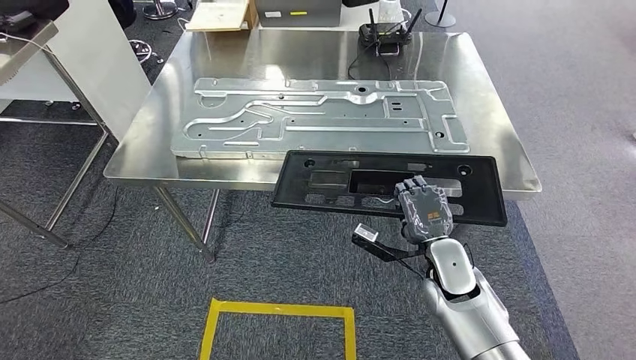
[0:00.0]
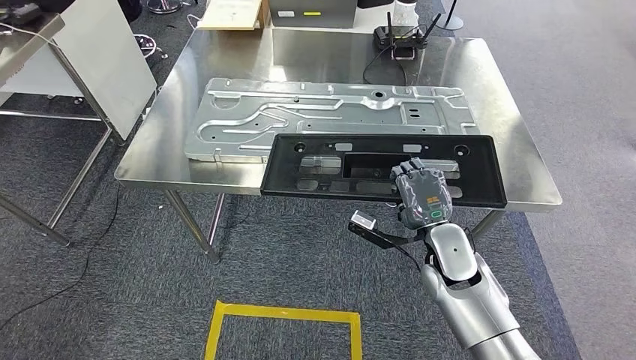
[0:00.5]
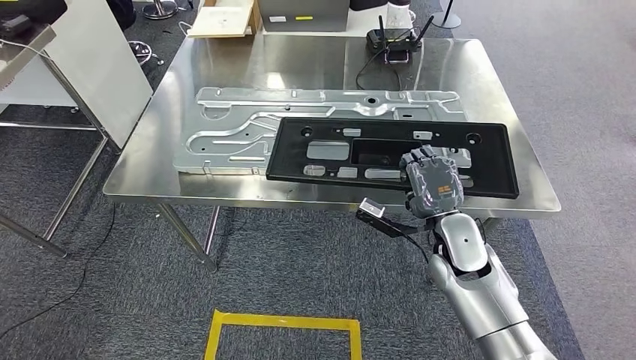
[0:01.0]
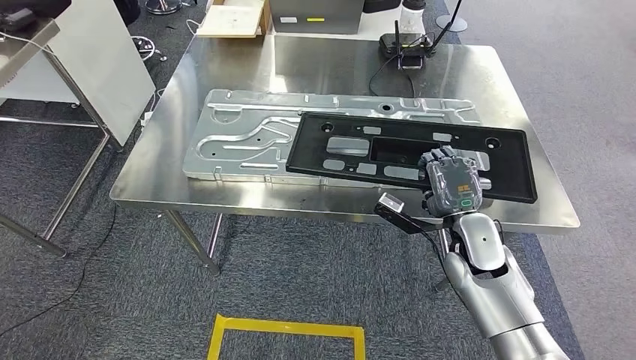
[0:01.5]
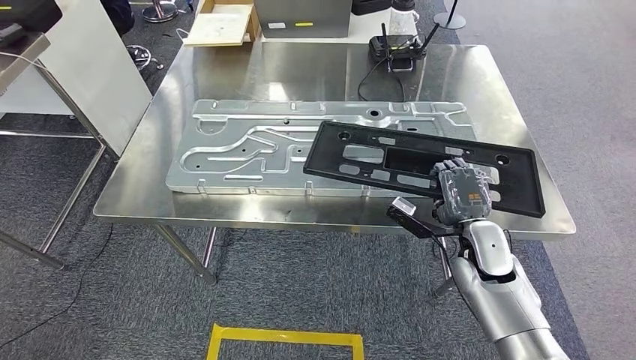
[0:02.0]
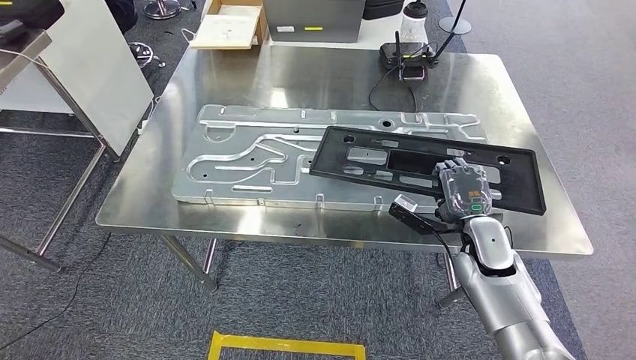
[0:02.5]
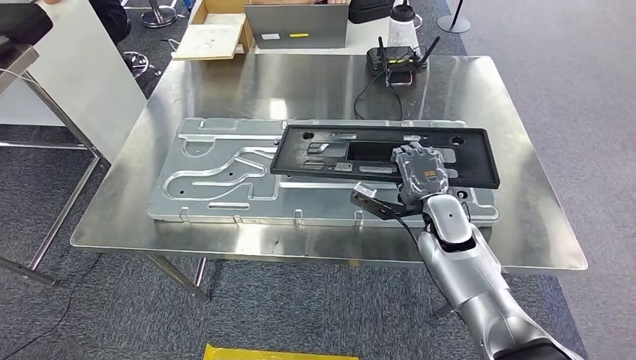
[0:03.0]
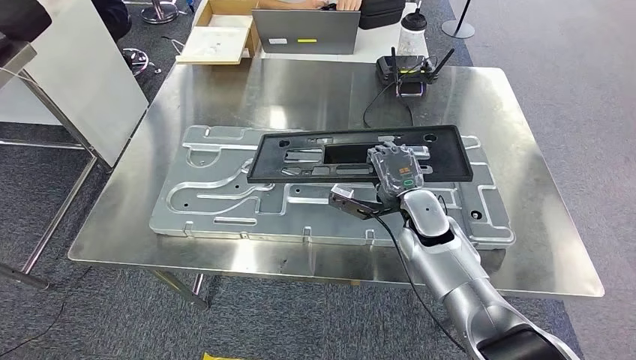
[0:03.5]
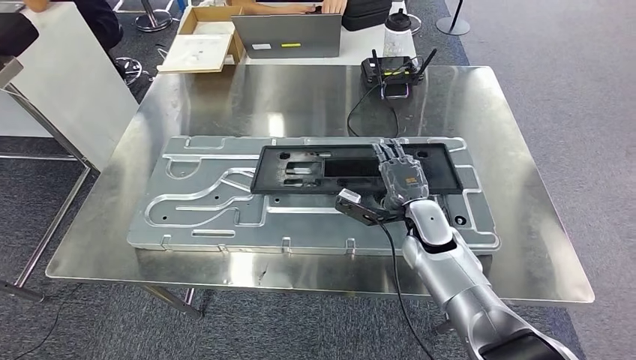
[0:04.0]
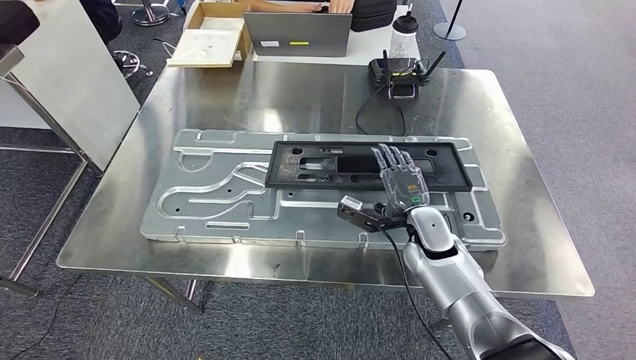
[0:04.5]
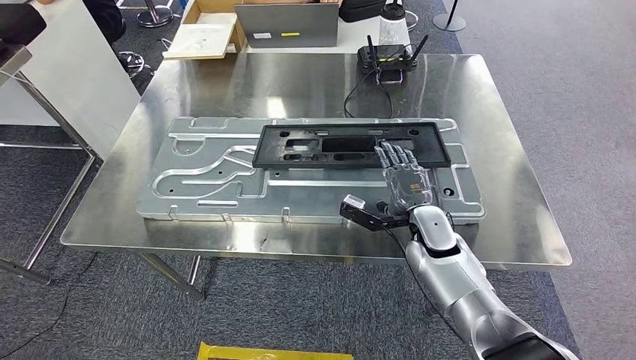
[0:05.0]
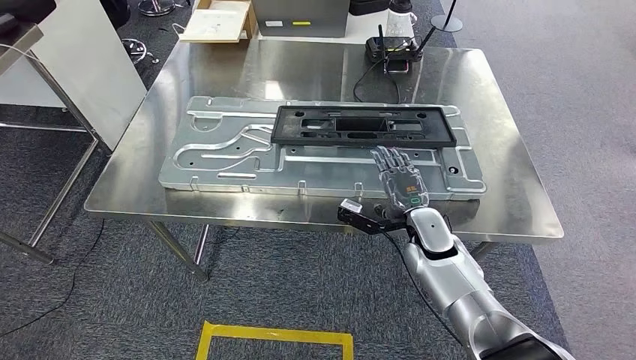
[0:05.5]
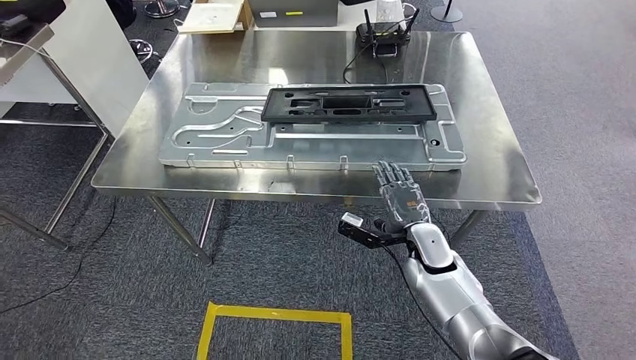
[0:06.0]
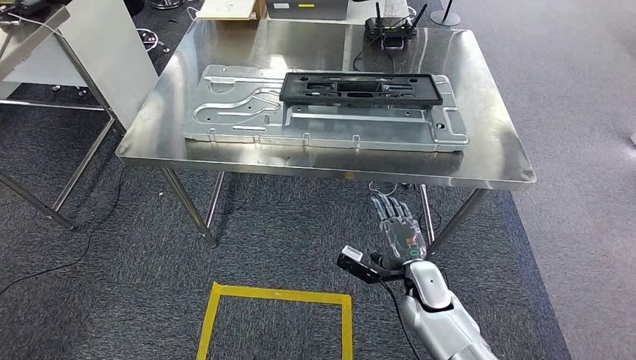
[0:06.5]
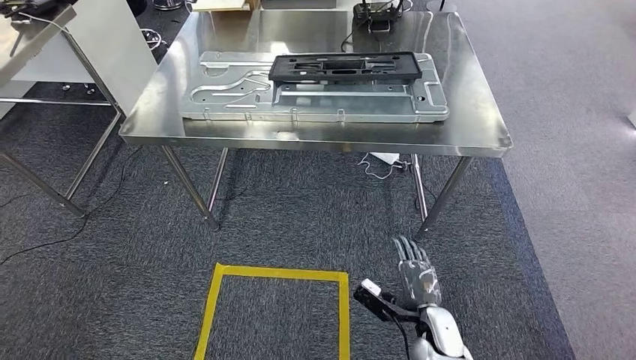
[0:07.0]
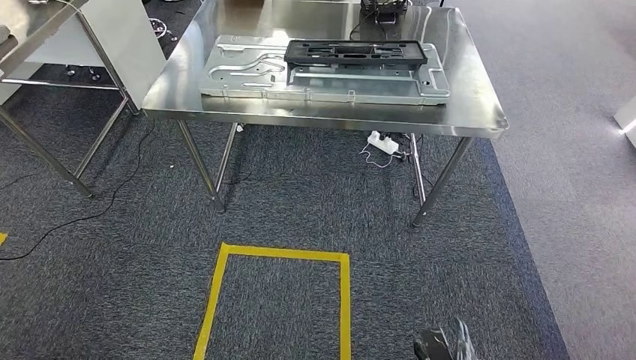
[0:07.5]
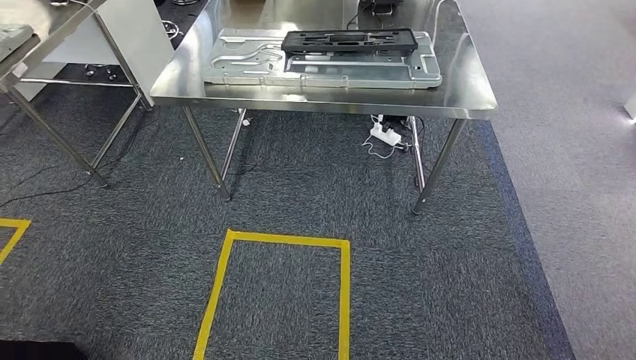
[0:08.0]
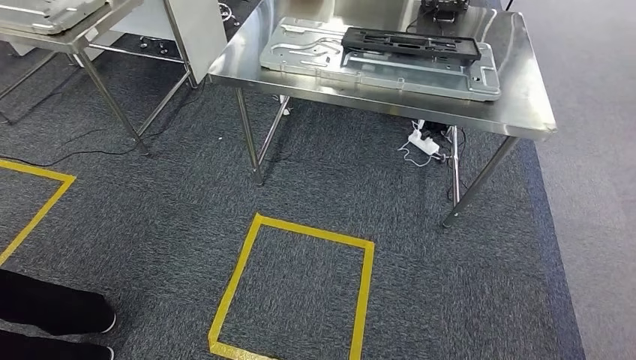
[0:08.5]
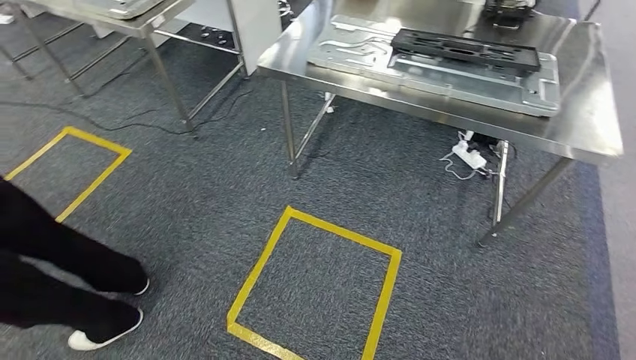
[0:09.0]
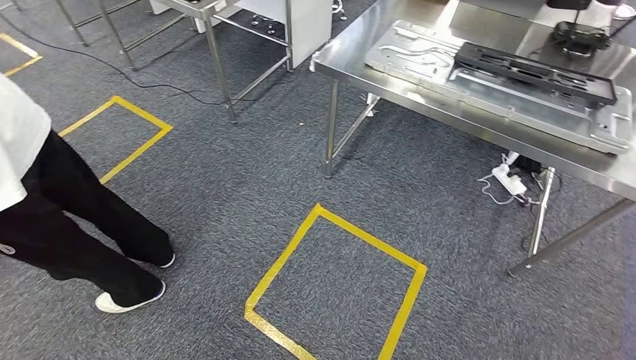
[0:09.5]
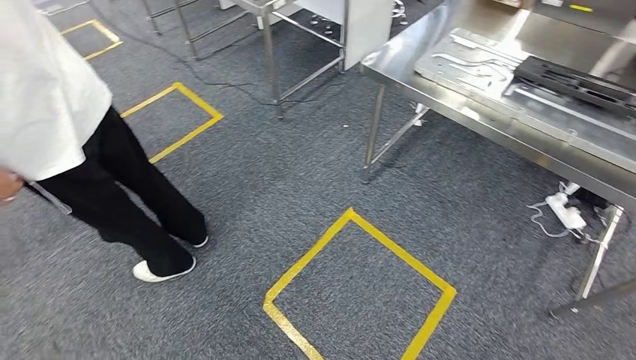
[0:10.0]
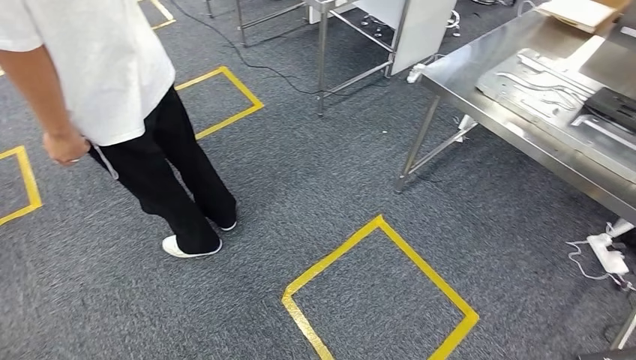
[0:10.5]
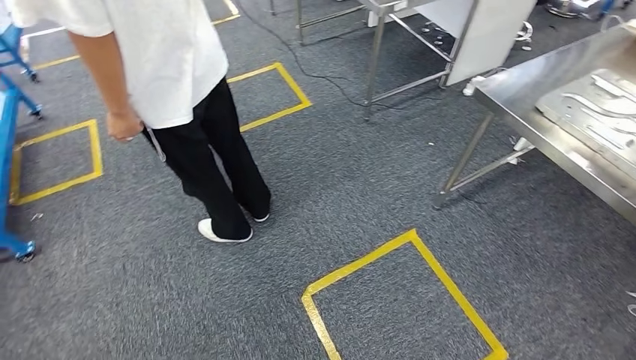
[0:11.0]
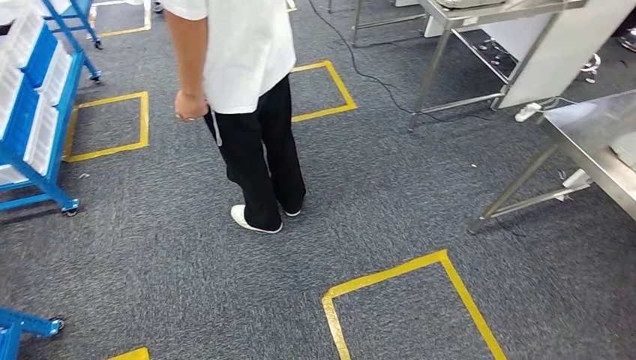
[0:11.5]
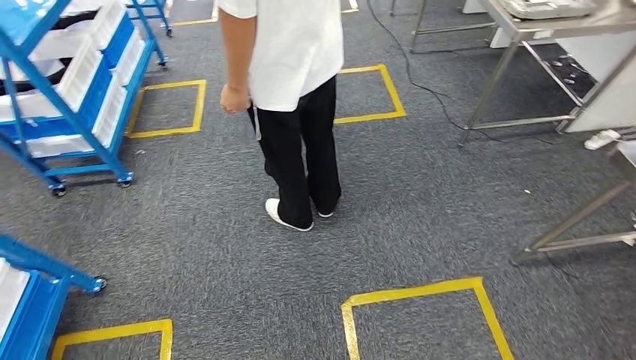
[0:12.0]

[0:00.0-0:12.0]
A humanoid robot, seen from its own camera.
Step, 0:00.0 to 0:08.0: Insert the large material into the corresponding slot on the workbench.

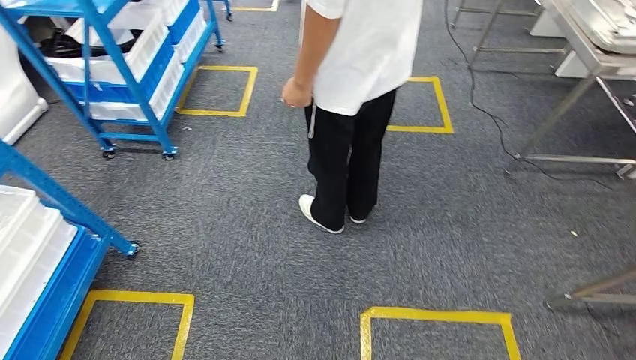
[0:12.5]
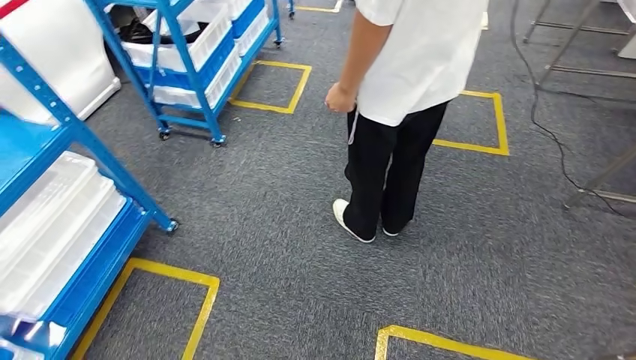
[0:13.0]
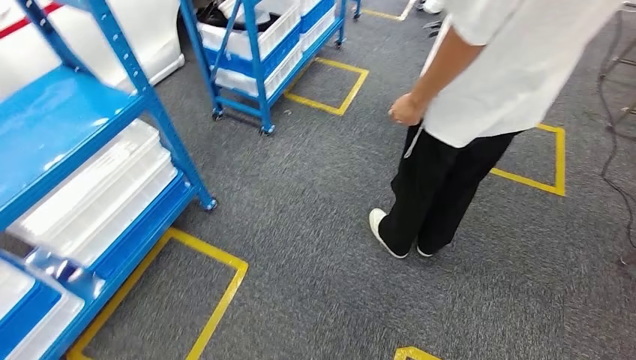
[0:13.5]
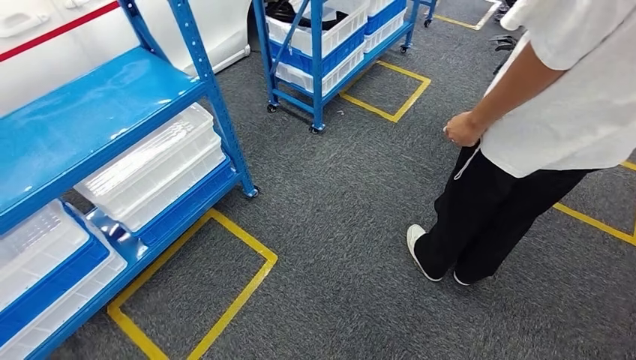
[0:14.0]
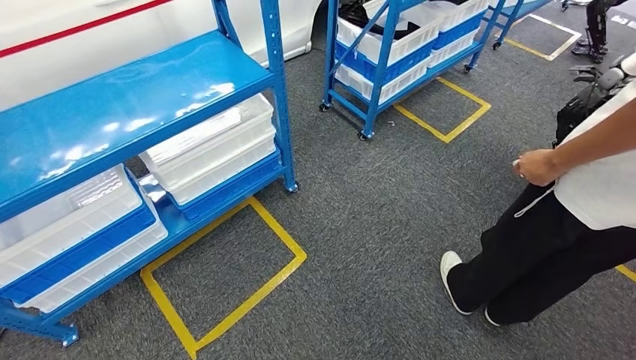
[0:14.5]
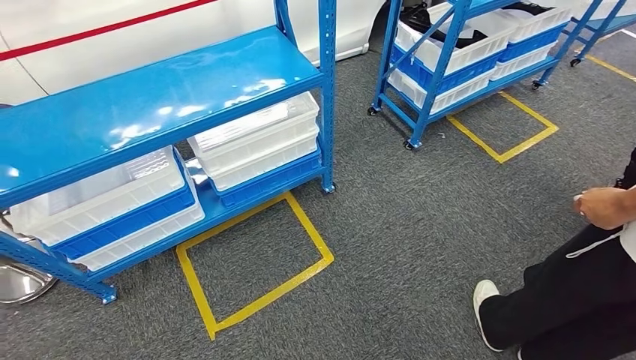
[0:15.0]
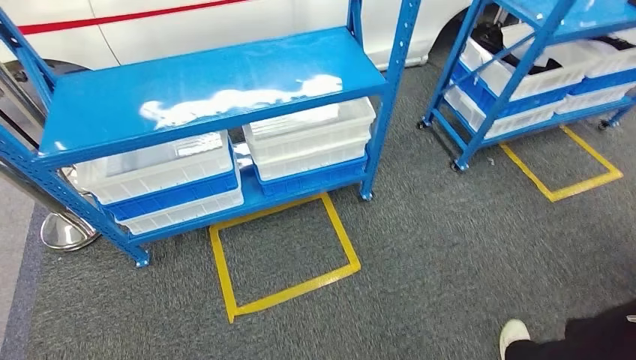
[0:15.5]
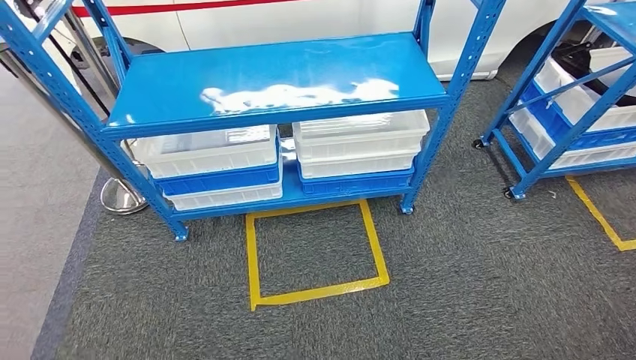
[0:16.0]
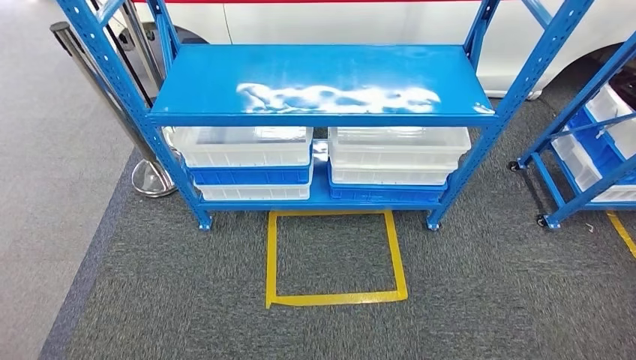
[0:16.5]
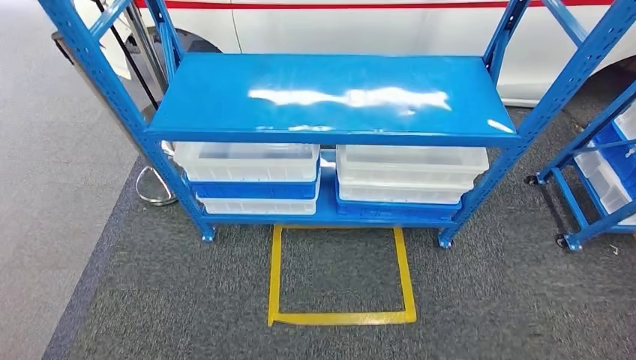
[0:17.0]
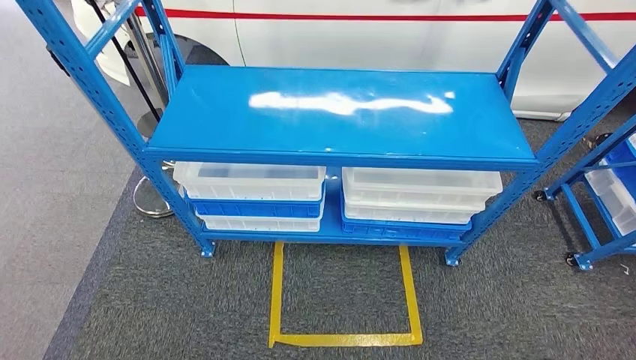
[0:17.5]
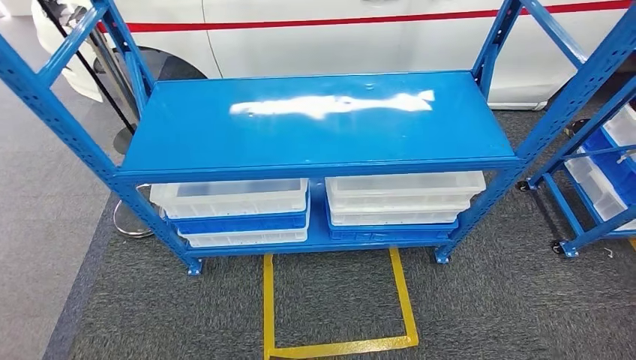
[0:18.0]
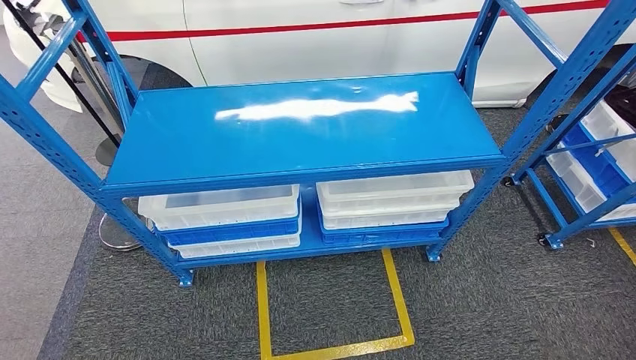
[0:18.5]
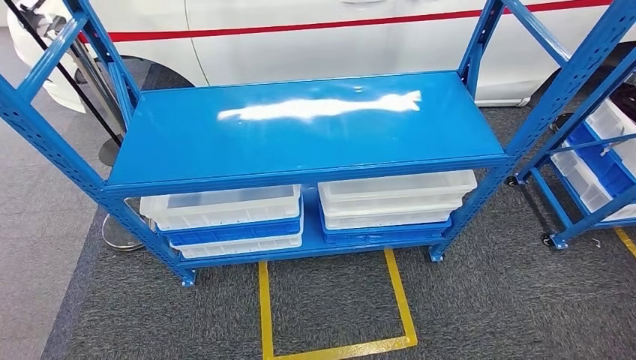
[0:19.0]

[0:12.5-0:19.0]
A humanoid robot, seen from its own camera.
Step, 0:12.5 to 0:19.0: Move to the initial position of the shelf.
